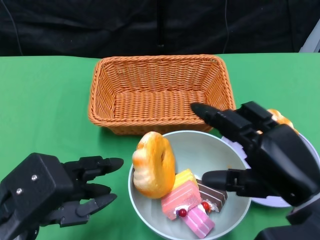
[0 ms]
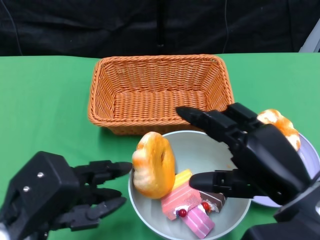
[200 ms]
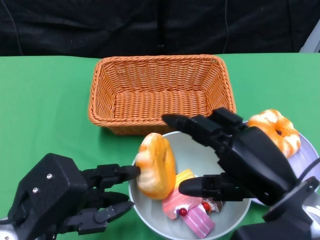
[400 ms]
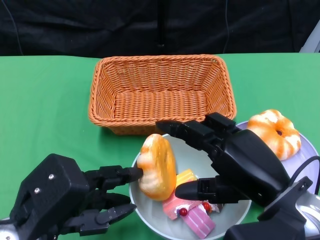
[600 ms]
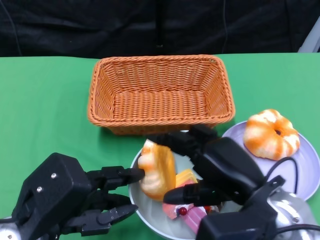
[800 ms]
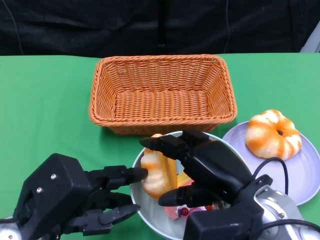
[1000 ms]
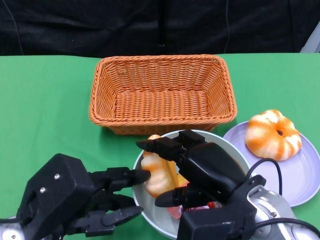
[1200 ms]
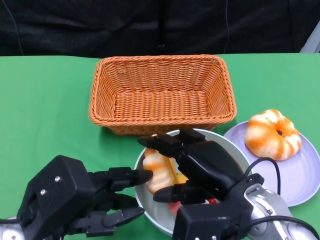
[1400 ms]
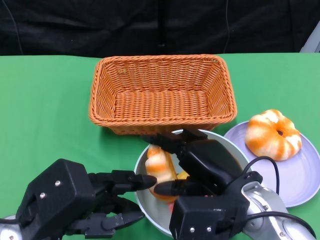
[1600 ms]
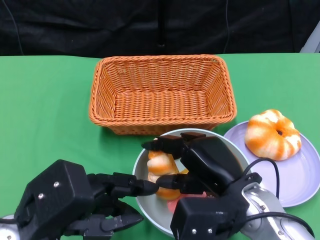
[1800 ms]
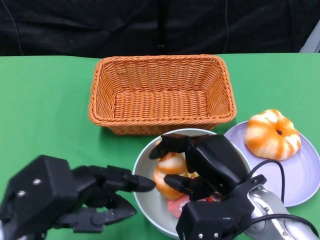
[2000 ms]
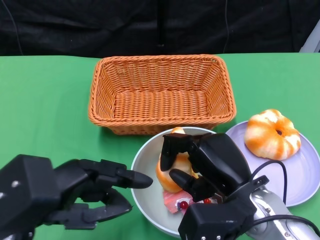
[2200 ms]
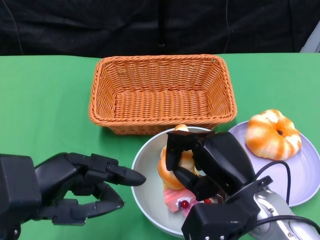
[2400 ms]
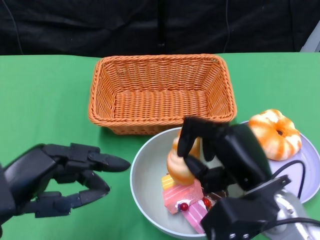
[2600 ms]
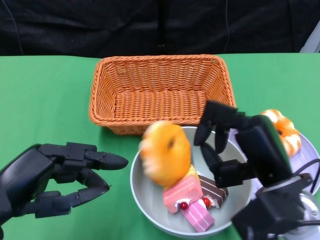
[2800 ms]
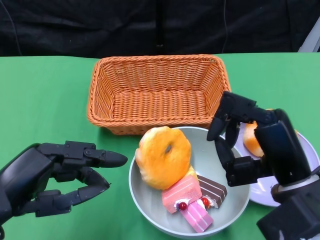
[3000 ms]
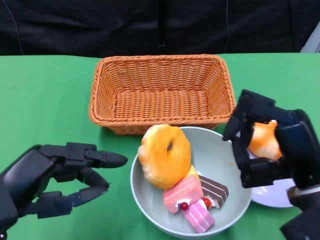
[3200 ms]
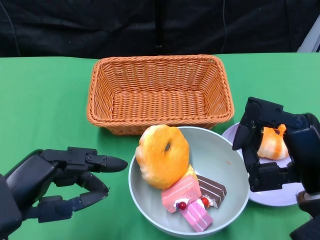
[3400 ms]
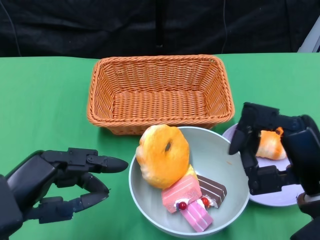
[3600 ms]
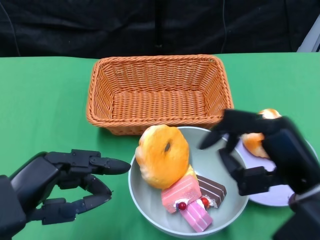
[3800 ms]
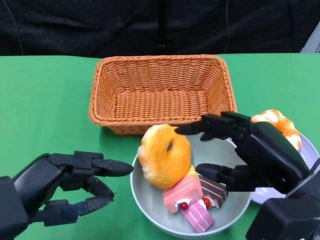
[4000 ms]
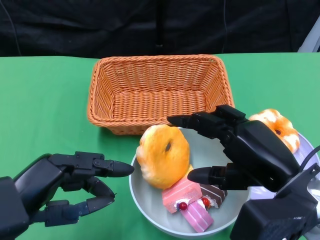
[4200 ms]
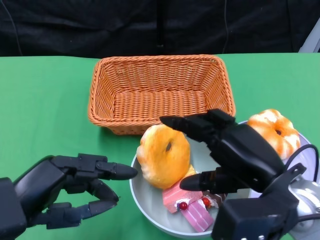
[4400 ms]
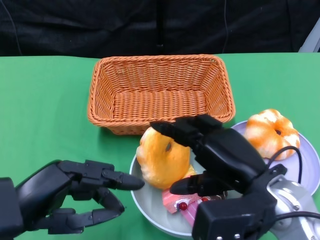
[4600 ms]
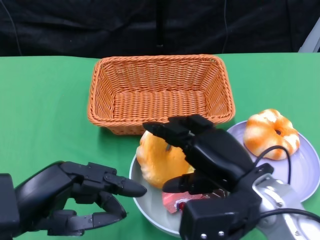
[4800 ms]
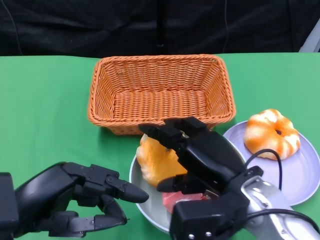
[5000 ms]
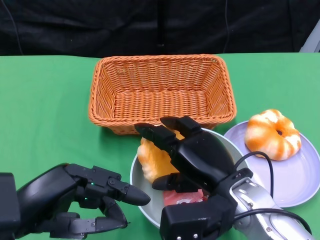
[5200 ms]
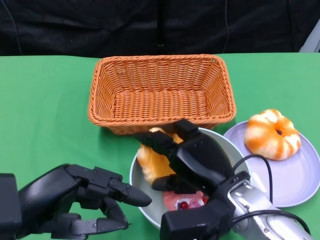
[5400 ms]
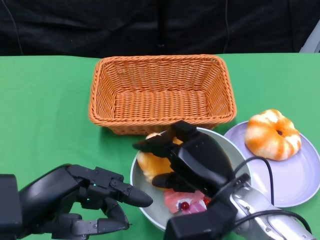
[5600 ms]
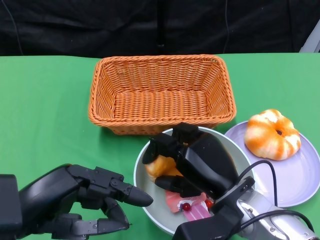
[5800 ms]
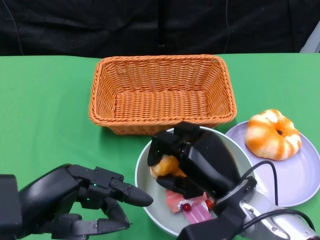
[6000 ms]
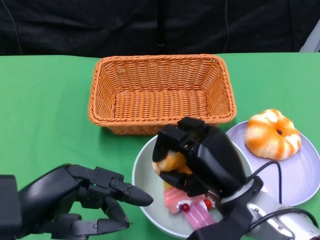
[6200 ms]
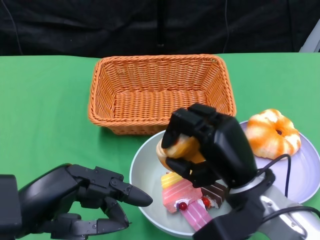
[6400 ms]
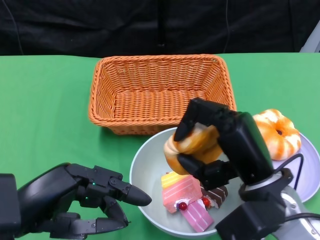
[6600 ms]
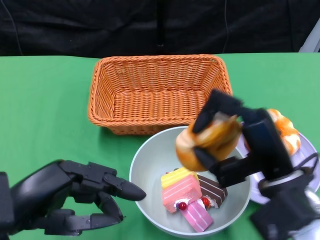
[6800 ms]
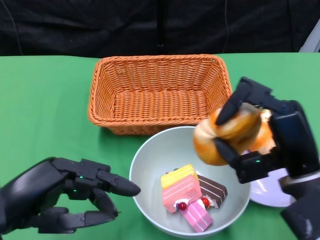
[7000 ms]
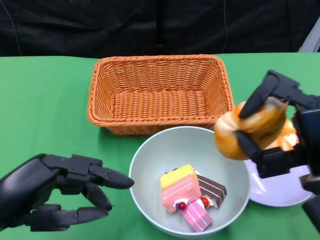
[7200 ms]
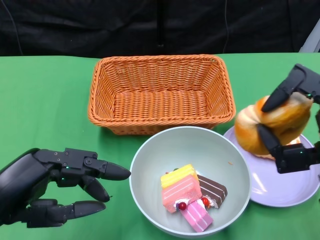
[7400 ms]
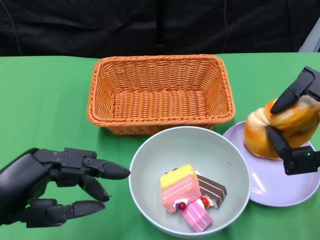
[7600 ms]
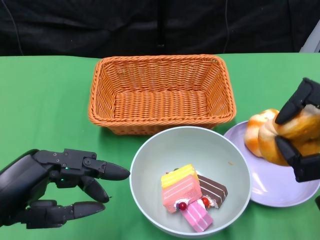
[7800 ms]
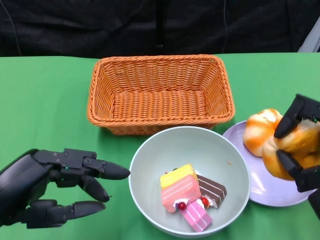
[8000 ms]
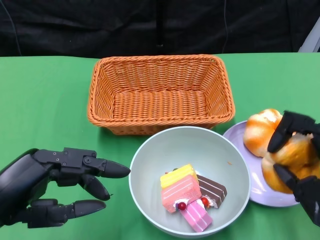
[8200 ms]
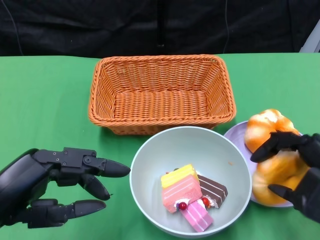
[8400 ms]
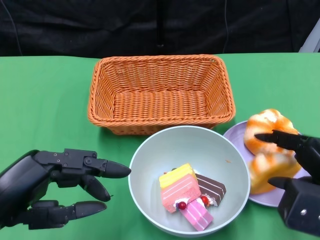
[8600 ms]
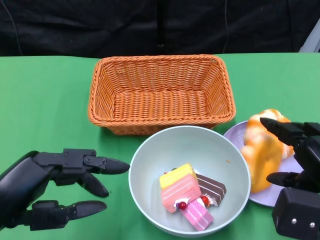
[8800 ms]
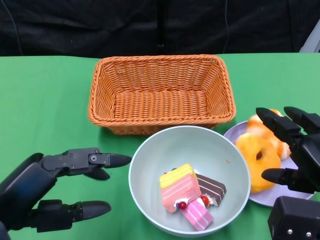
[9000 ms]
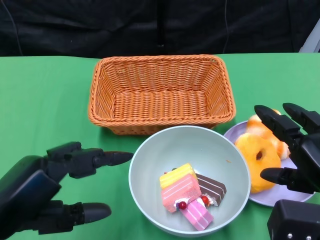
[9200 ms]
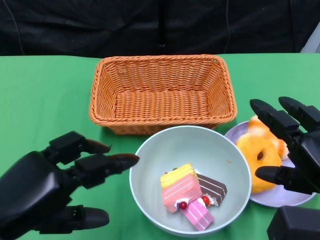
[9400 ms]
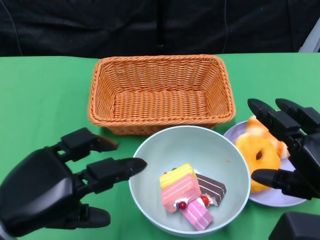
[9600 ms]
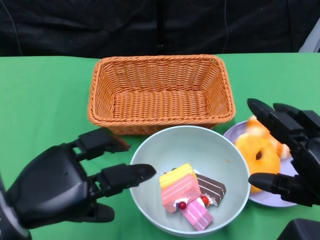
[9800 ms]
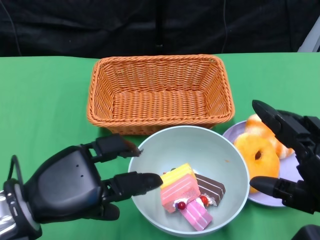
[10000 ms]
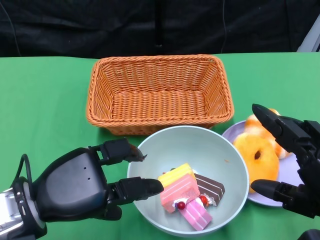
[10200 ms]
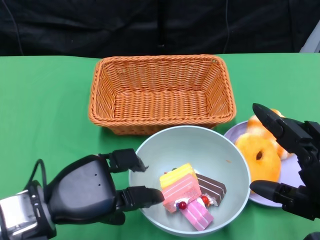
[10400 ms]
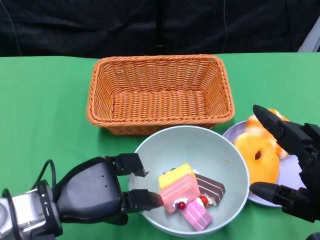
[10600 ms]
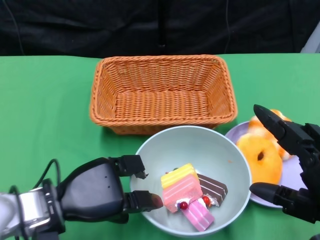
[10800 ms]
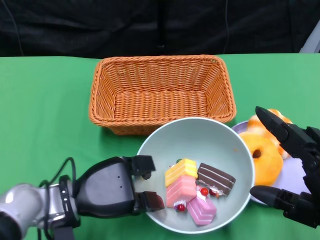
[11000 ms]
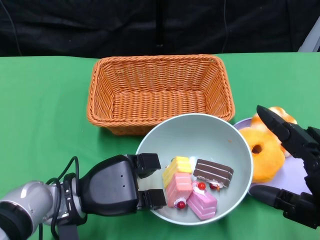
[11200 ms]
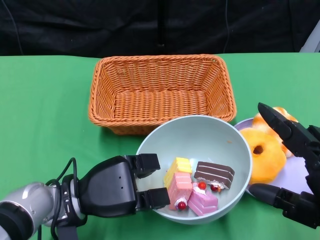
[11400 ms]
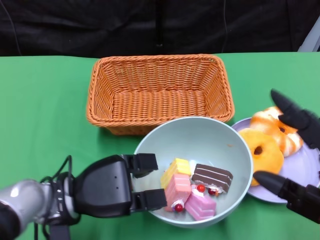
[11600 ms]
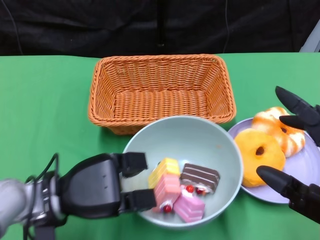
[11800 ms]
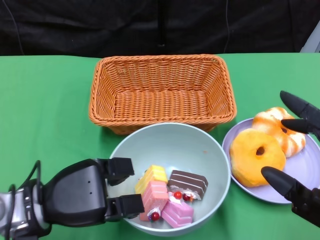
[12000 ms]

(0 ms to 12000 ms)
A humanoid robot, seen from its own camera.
Step, 0 ms - 8600 ms: Pick up the bread with the right gripper and place it on the plate.
Step, 8800 ms - 11000 ms: Grasp the bowl with the left gripper.
0 ms - 1600 ms: The right hand travels to the left by about 10 cm.
1600 ms - 3000 ms: The right hand shifts roughly 5 cm to the right. Meanwhile the left hand is displaced to the left by about 5 cm.
4400 ms - 6000 ms: The right hand moves downward and to the left, about 10 cm.
6000 ms - 7600 ms: The right hand travels to the right and upward by roughly 15 cm.
9000 ms - 10400 ms: The left hand travels forward and downward by roughly 10 cm. Meanwhile the right hand heads backward, covering approximately 5 cm.

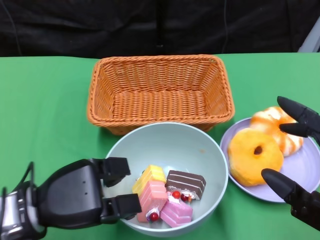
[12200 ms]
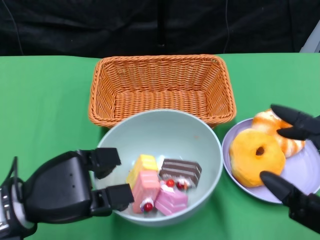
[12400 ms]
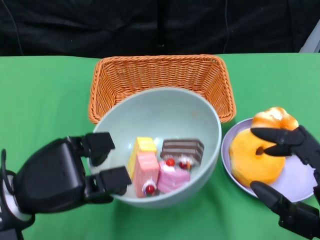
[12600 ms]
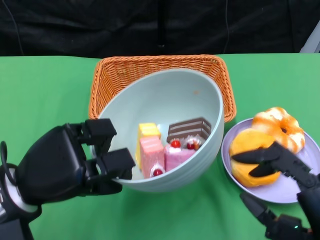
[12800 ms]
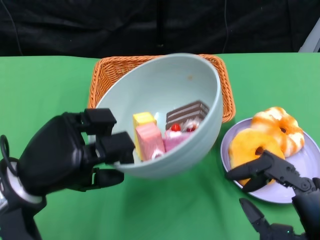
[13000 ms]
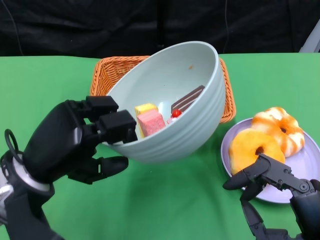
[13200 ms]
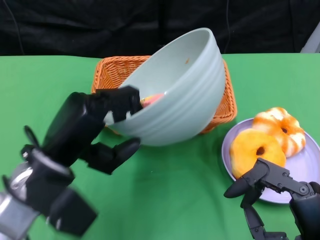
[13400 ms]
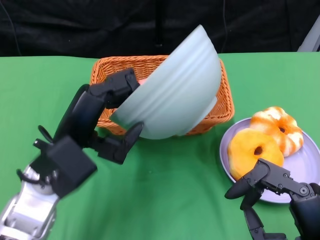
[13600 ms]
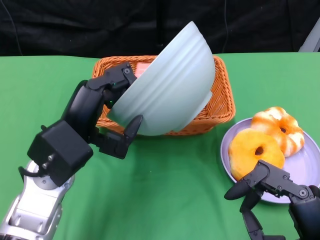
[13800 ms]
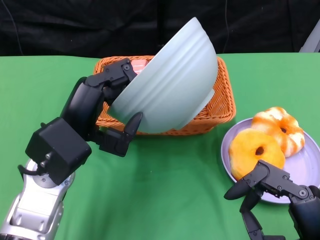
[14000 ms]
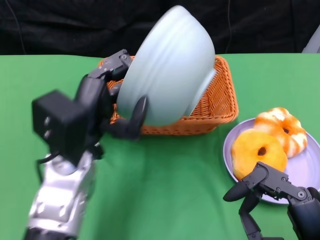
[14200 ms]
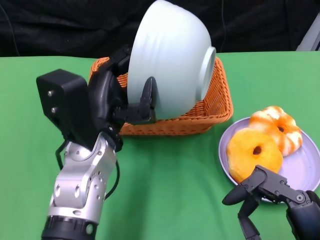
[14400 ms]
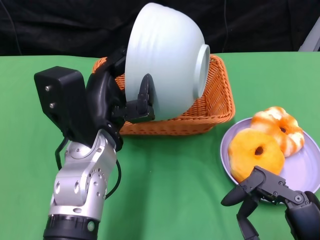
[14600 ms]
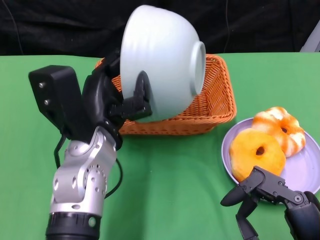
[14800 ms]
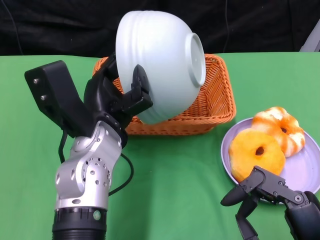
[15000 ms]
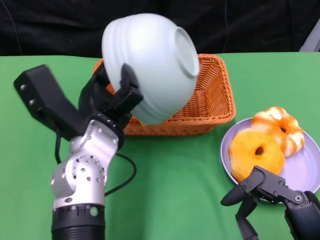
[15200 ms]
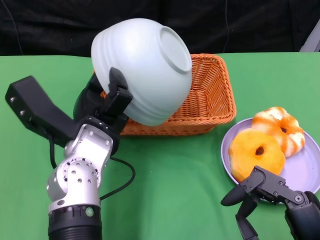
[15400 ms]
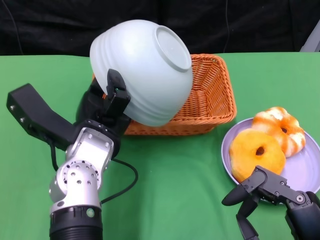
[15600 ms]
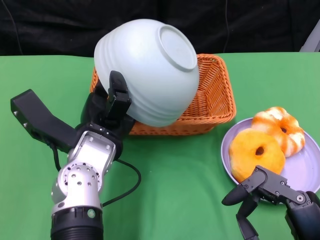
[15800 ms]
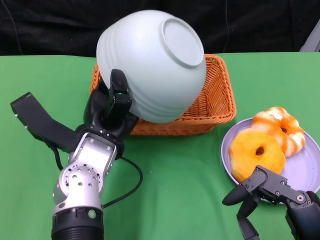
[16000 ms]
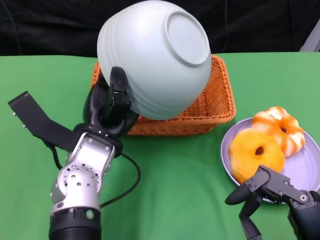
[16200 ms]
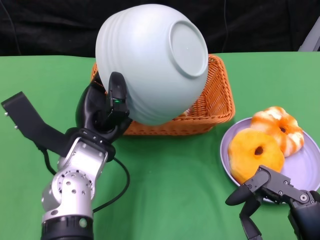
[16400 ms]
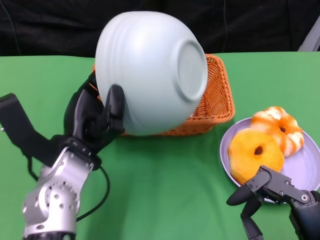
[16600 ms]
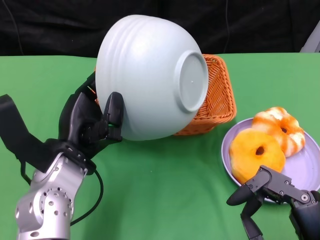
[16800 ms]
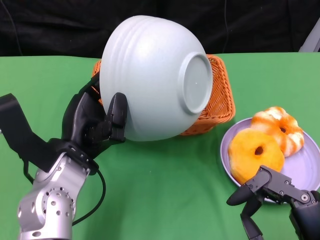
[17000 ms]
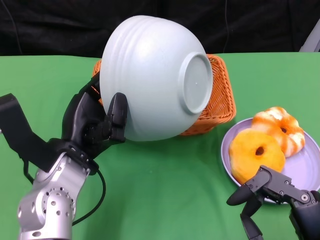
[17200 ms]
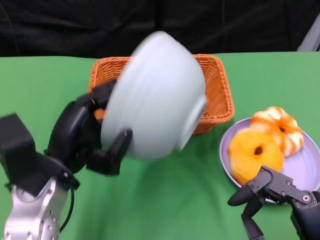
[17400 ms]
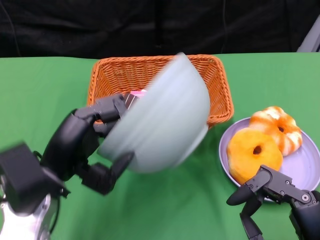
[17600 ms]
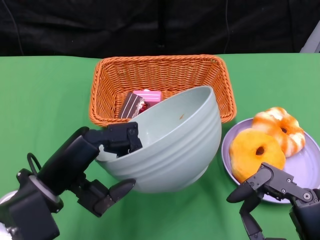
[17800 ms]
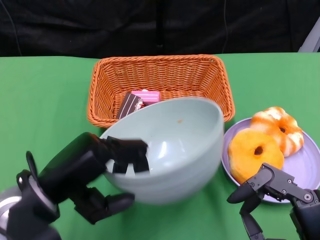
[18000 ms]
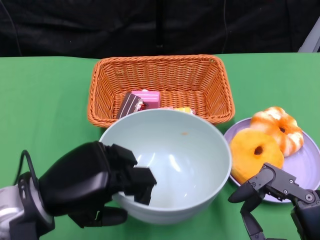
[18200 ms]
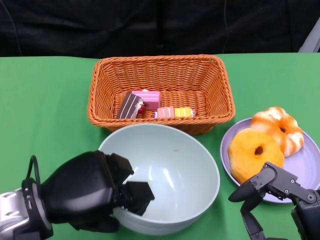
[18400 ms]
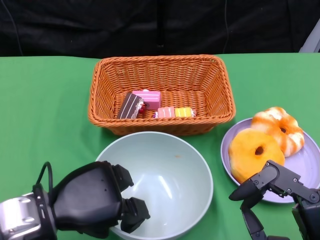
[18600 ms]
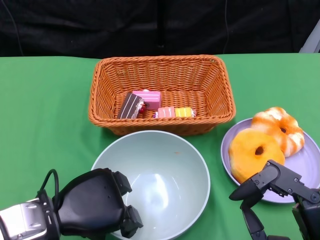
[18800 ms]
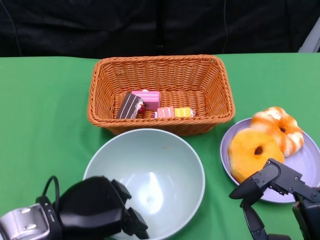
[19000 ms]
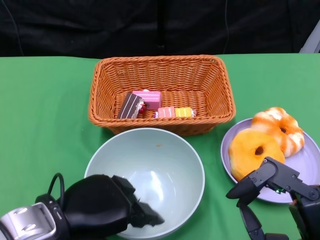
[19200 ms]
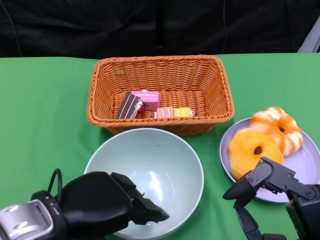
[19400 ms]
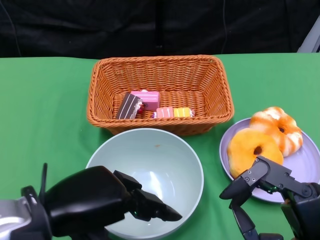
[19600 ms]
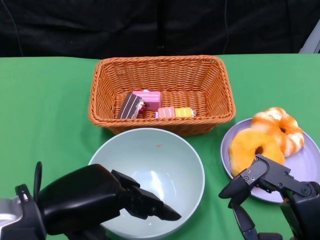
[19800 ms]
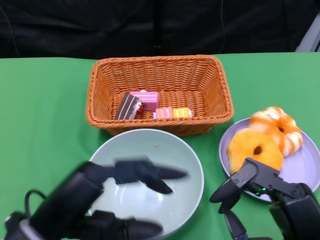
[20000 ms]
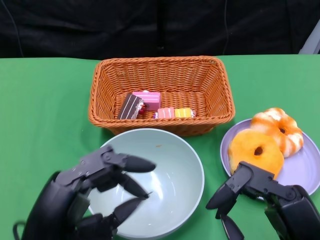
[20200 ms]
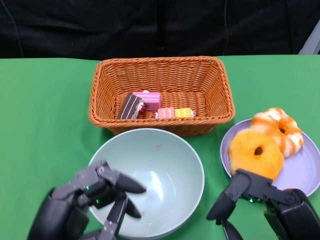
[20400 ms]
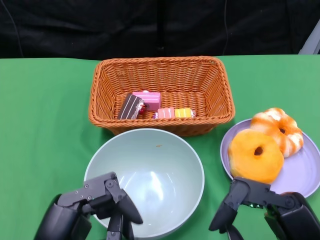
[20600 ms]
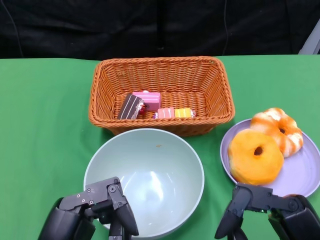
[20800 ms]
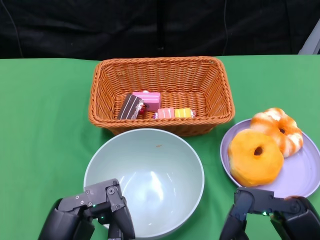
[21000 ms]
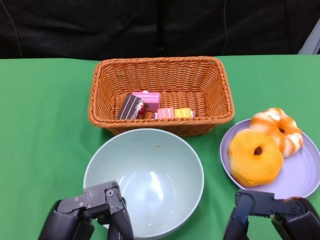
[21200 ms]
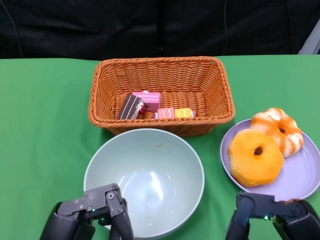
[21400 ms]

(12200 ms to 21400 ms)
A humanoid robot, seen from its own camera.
Step, 12200 ms - 16800 ms: Pour the cake into the basket with the left gripper.
Step, 17000 ms - 19400 ms: Place the bowl on the table with the left gripper.
12200 ms - 13800 ms: The left hand goes approximately 5 cm upward.
13800 ms - 15200 ms: The left hand goes some 5 cm to the right.
15200 ms - 16800 ms: The left hand shifts about 5 cm to the left.
16800 ms - 18400 ms: The left hand shifts roughly 5 cm backward.
18400 ms - 19800 ms: The left hand moves upward, some 5 cm.
19800 ms - 21400 ms: The left hand moves backward and downward, roughly 10 cm.

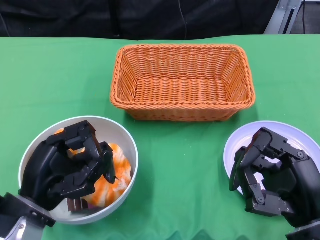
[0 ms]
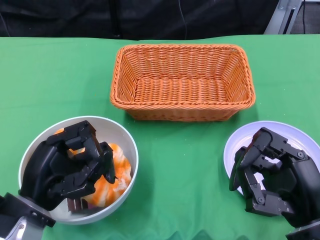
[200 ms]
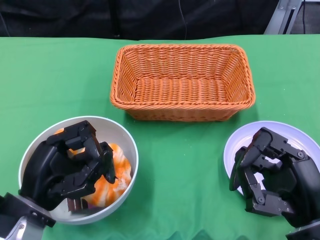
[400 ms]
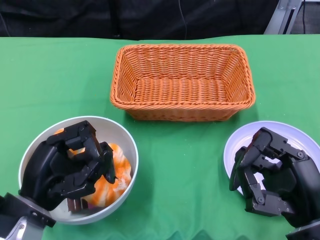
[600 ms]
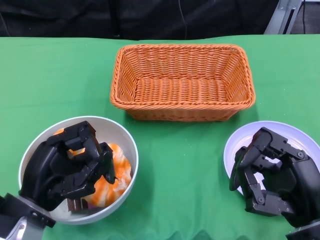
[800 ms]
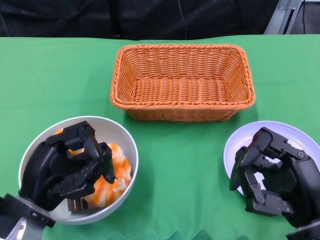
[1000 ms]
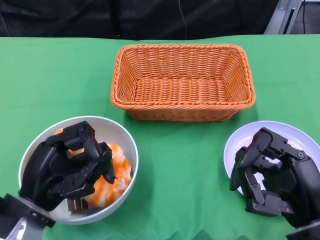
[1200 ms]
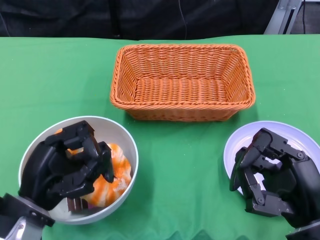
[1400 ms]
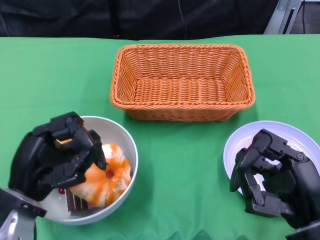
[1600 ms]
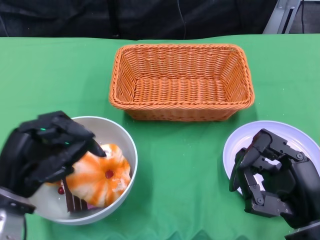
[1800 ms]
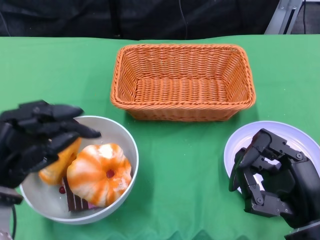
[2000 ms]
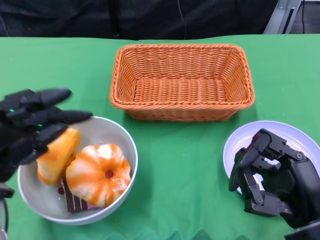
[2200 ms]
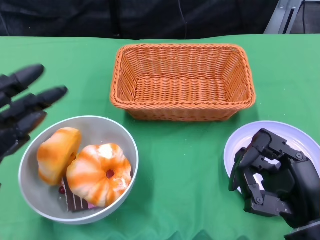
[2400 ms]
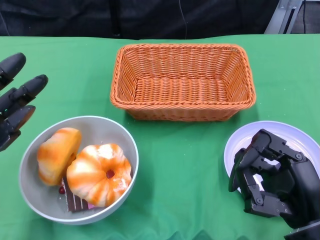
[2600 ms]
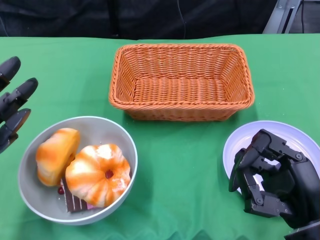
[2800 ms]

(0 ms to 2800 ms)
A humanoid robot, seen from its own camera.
1400 ms - 2800 ms: The left hand moves to the left, some 5 cm.
